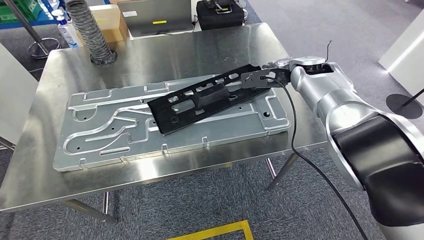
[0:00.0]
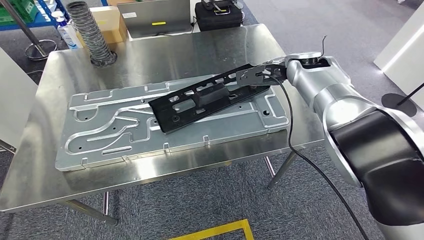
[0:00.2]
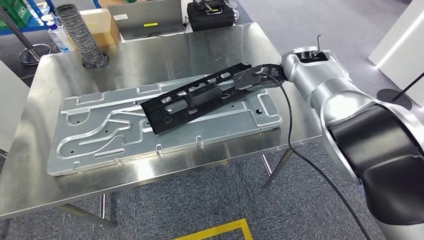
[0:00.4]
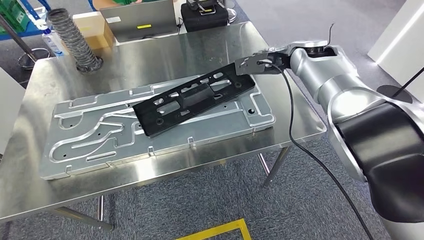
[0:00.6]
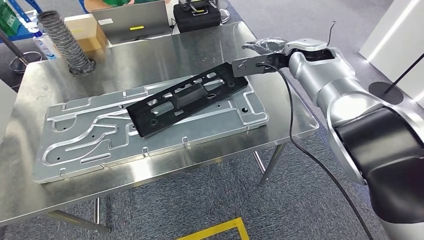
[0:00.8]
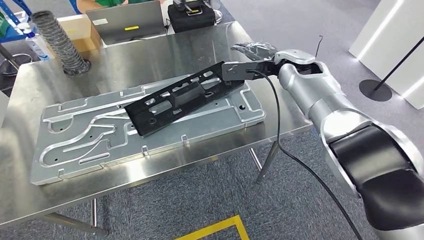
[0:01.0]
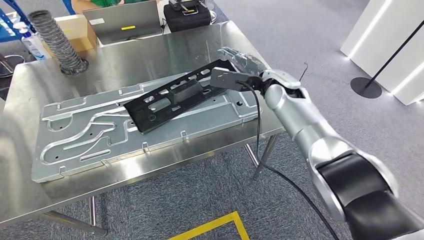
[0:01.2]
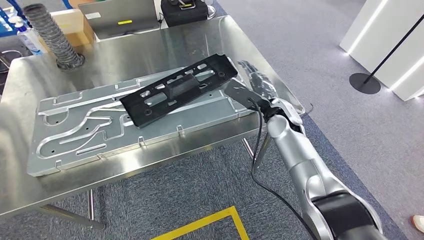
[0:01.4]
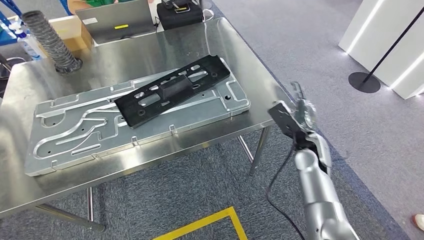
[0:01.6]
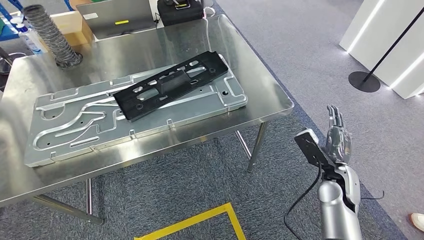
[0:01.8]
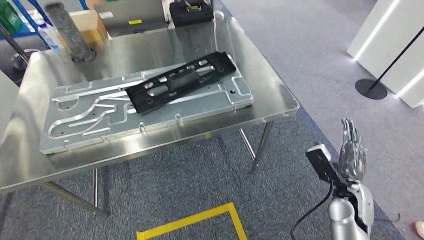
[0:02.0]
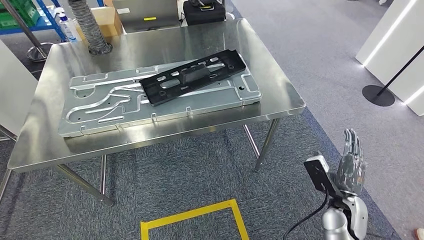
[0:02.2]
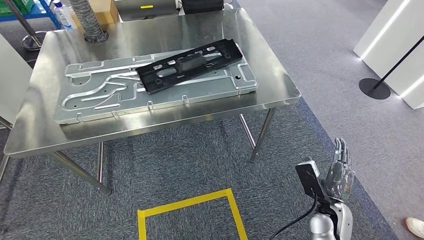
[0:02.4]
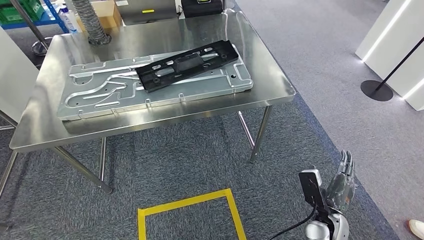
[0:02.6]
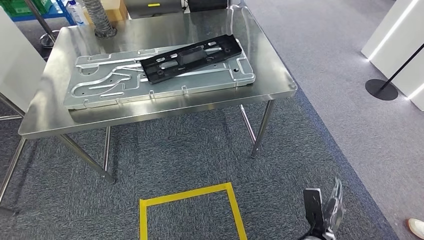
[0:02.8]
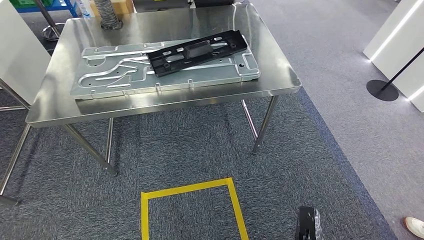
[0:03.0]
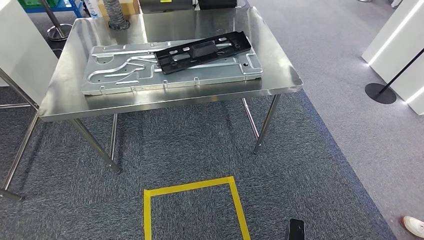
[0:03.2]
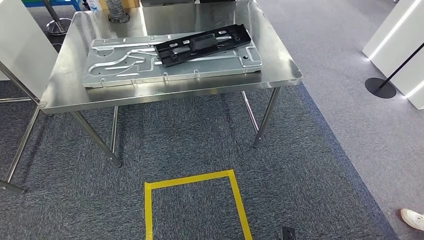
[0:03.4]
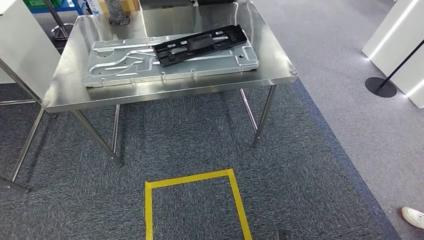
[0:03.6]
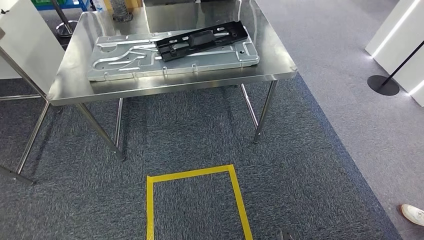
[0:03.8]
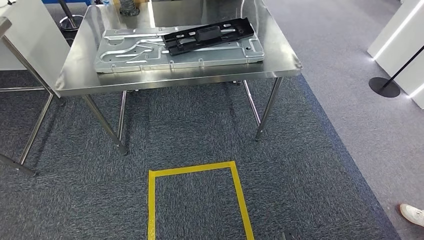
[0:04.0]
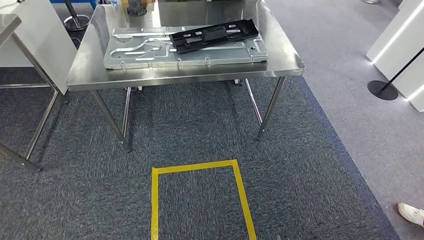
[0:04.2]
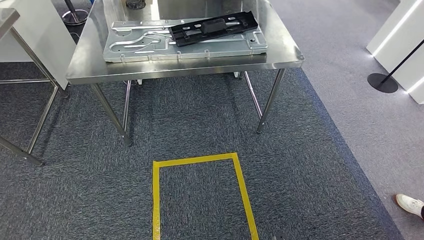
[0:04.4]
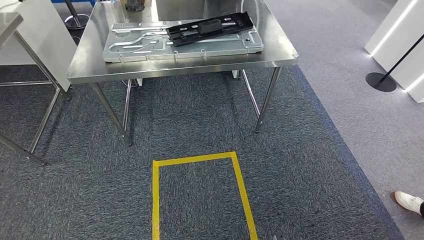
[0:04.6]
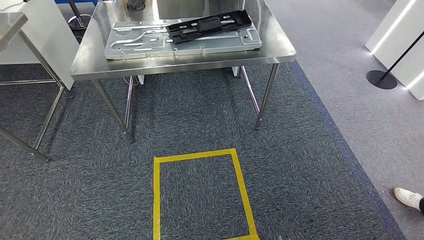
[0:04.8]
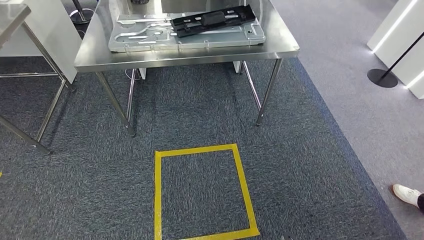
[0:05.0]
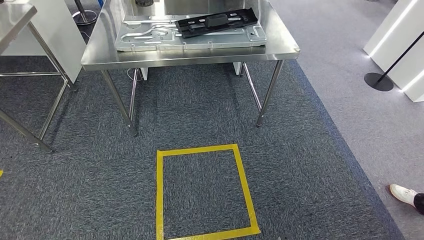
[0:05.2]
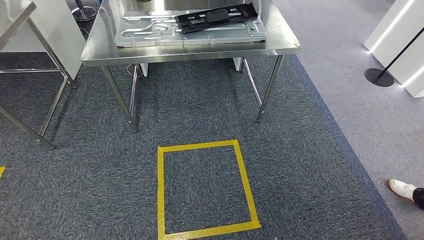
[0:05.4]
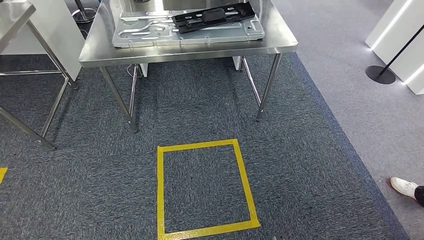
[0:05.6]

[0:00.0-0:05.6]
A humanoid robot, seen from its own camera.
Step, 0:02.6 to 0:05.6: Return to the initial position at the shelf.
